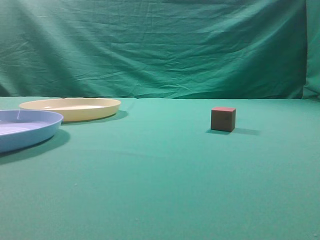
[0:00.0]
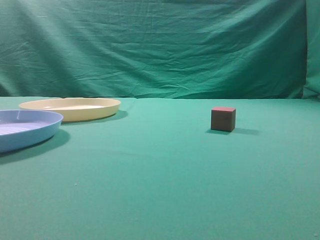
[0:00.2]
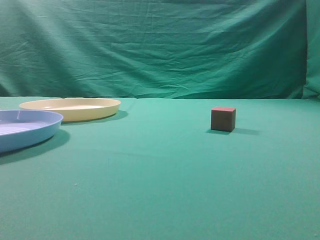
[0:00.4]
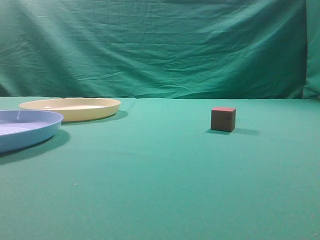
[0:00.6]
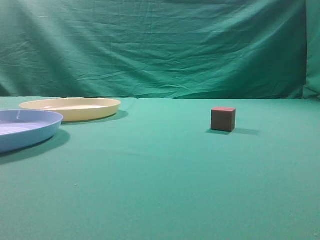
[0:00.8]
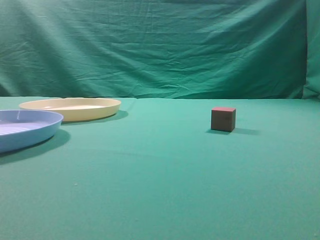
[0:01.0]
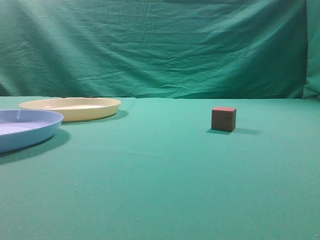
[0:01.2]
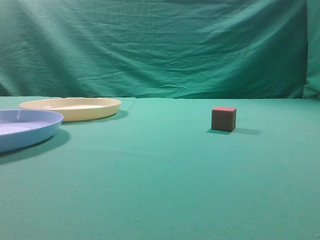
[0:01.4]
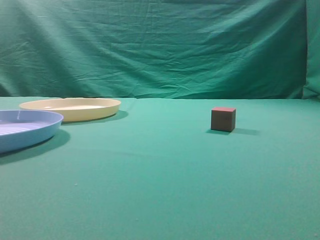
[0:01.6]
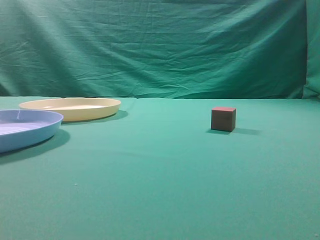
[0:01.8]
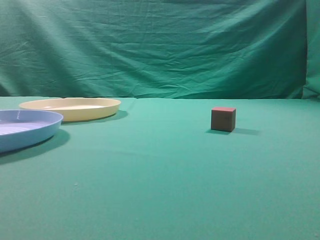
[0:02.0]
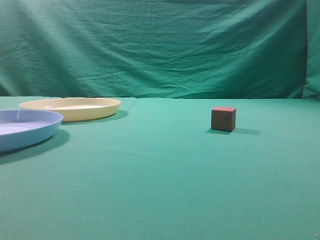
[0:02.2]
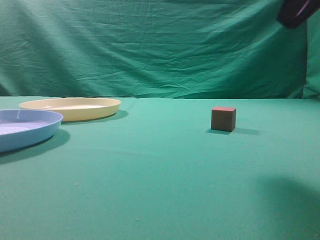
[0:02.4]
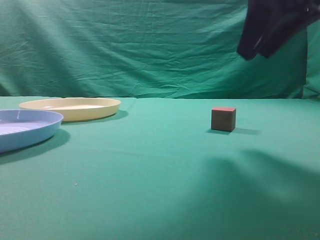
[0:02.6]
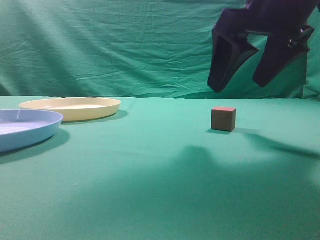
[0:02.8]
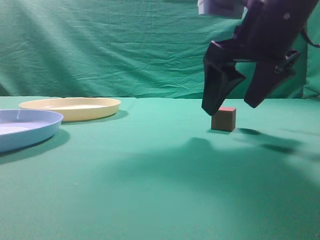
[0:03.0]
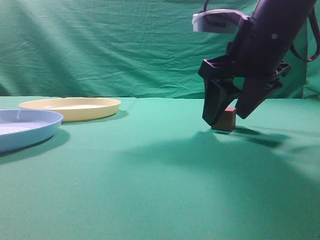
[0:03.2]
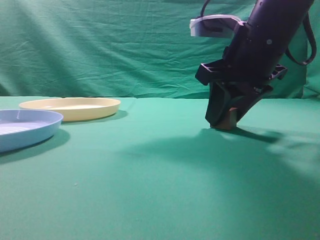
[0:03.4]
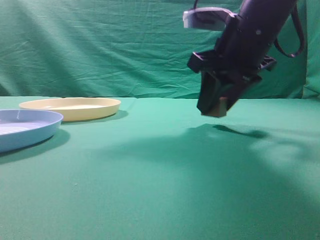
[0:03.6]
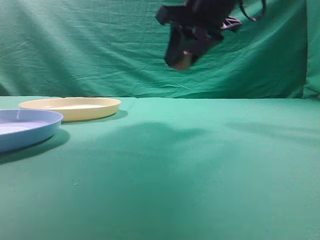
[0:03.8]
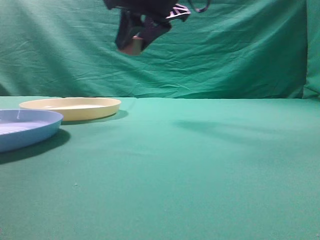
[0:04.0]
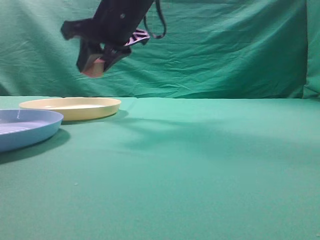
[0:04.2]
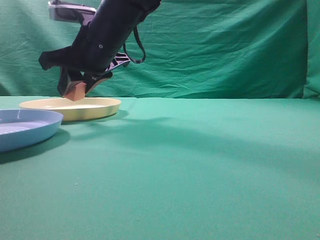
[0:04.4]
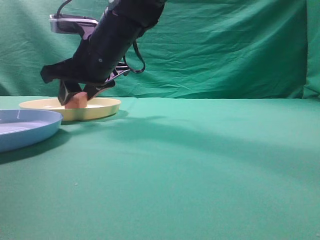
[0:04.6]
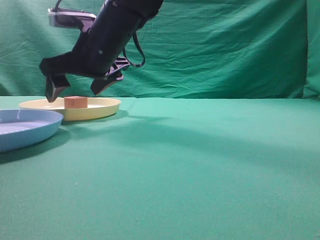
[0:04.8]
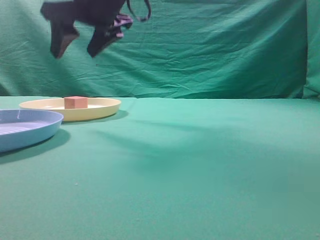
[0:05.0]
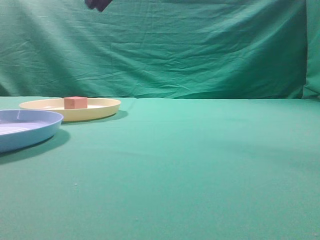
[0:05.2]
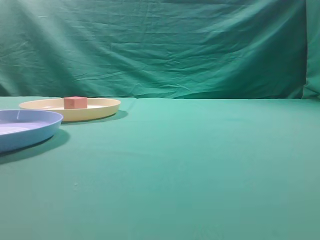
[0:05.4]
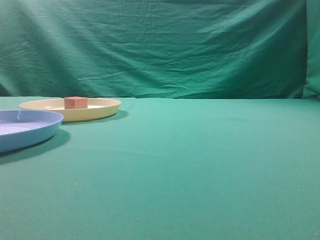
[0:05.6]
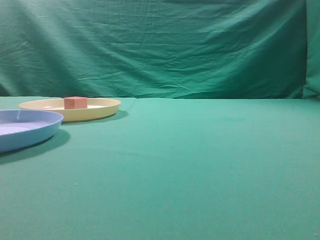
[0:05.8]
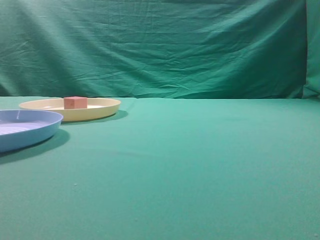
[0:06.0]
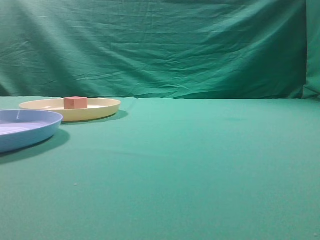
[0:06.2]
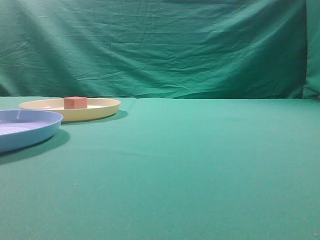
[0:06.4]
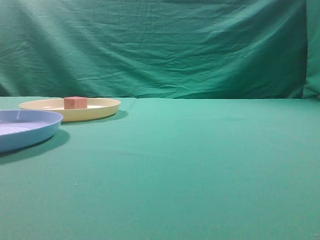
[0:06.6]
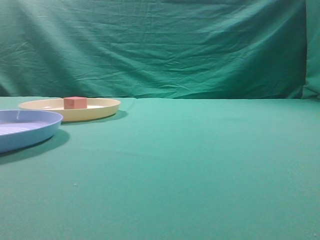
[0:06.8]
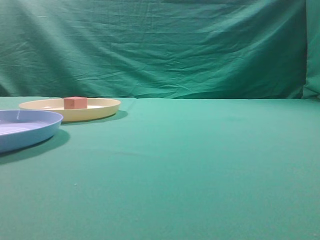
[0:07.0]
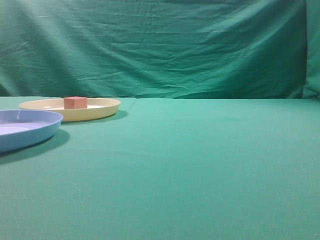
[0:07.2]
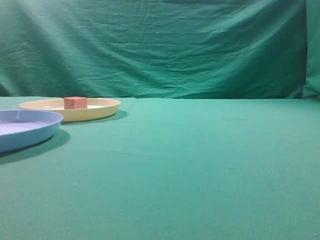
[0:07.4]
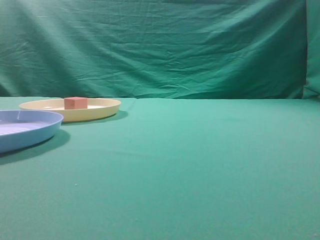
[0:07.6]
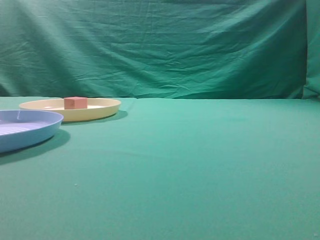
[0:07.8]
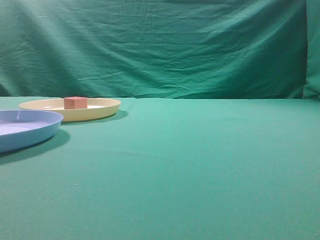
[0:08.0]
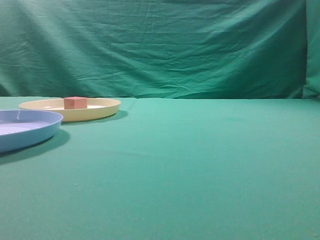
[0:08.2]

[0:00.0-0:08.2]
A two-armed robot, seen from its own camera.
Task of the whole recording: pick up the cube block from the table and put it on the plate.
Step, 0:00.0 to 0:03.6: Grasp the small cube on the table.
Step, 0:03.8 to 0:04.8: Place it into the yellow plate.
0:01.6 to 0:03.2: The right gripper moves forward and to the left, some 30 cm, and opens its fingers.
0:03.2 to 0:05.0: The right gripper shifts some 20 cm to the left and upward.
0:05.0 to 0:06.6: The right gripper shifts roughly 40 cm to the right and backward, and closes.
